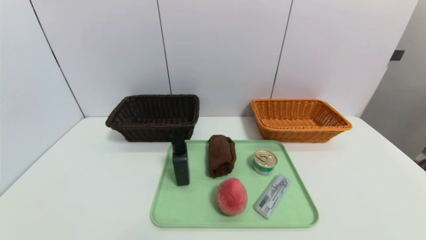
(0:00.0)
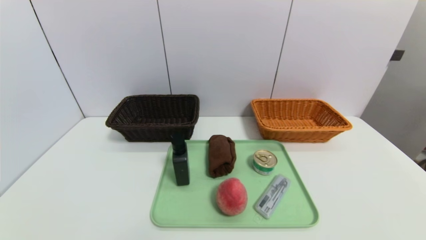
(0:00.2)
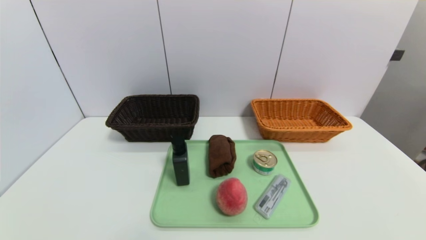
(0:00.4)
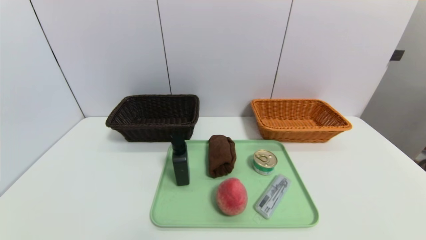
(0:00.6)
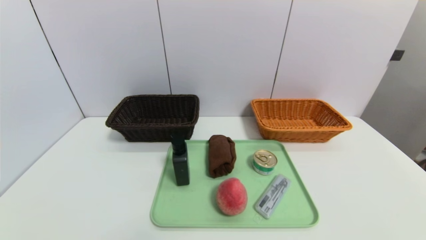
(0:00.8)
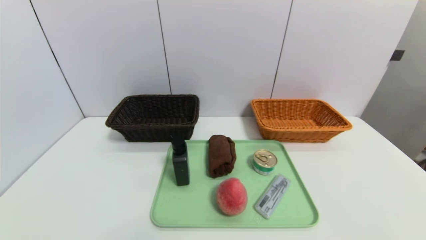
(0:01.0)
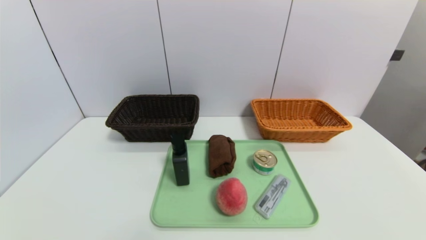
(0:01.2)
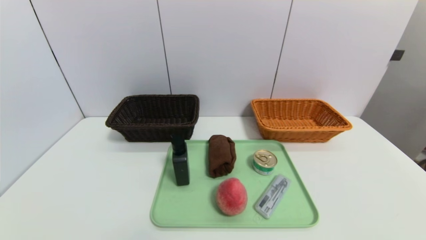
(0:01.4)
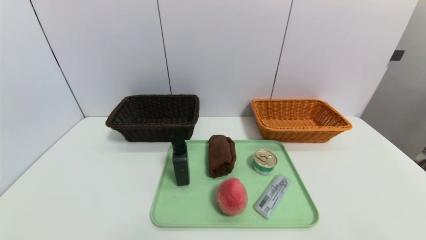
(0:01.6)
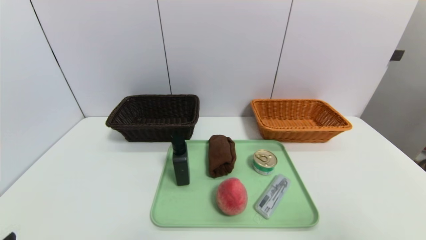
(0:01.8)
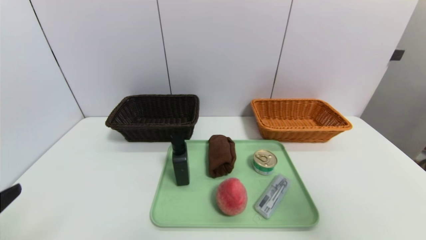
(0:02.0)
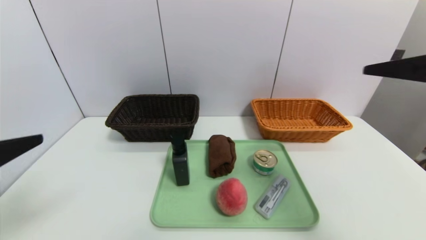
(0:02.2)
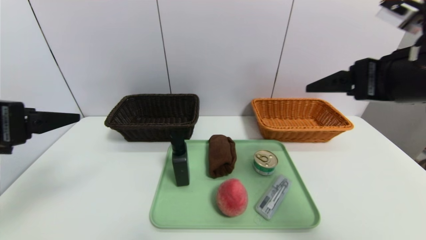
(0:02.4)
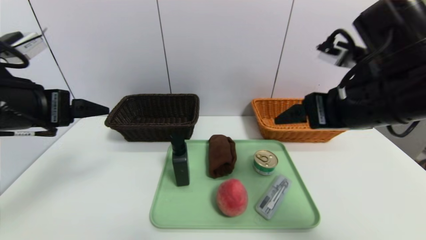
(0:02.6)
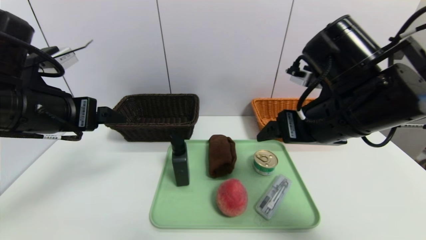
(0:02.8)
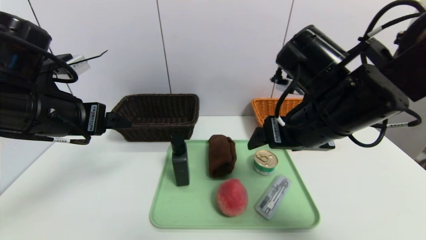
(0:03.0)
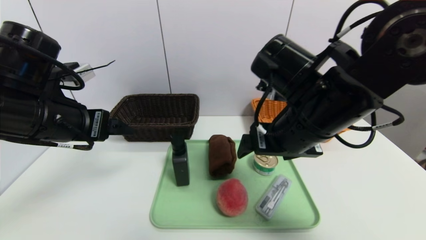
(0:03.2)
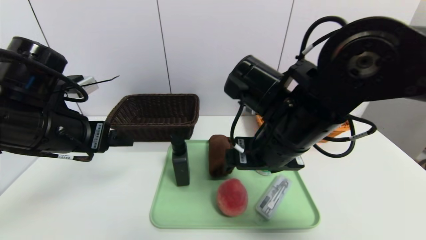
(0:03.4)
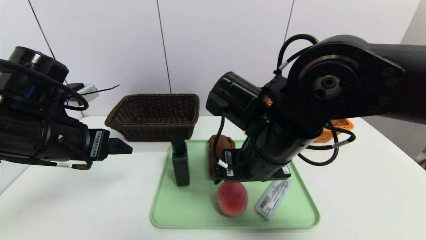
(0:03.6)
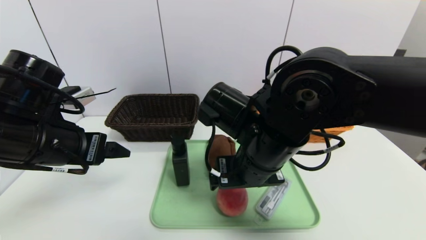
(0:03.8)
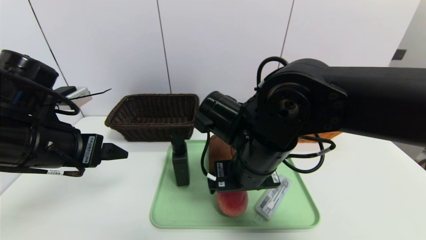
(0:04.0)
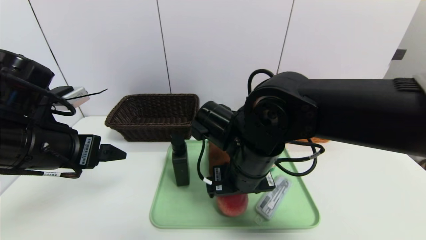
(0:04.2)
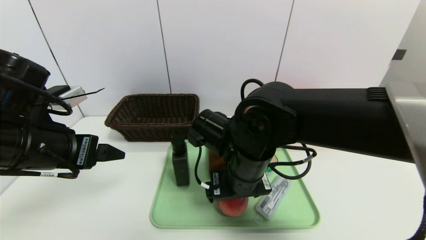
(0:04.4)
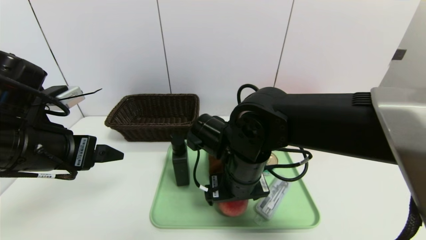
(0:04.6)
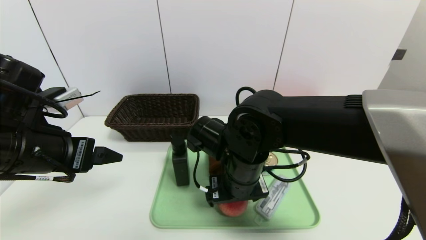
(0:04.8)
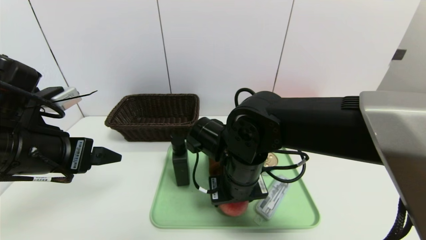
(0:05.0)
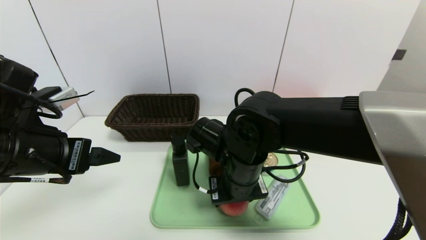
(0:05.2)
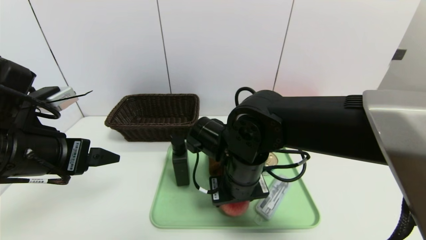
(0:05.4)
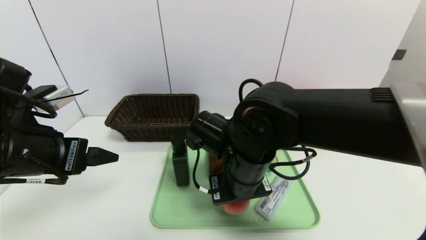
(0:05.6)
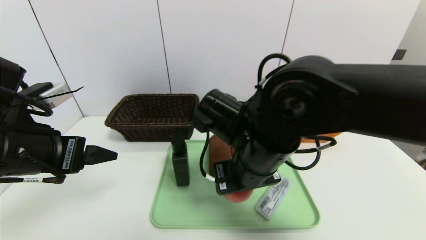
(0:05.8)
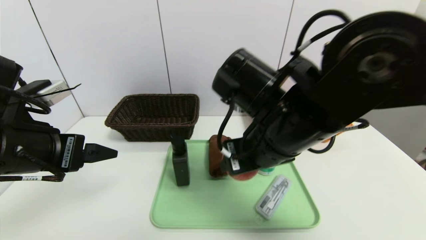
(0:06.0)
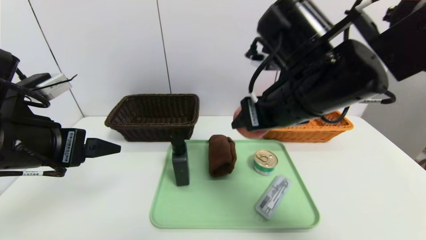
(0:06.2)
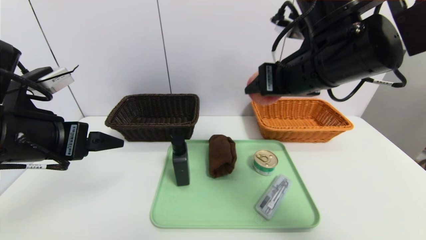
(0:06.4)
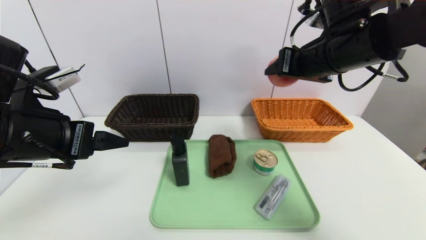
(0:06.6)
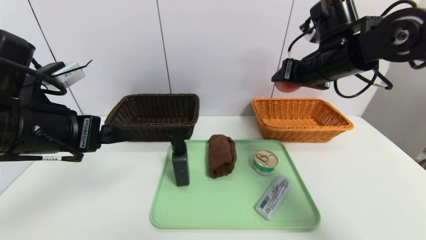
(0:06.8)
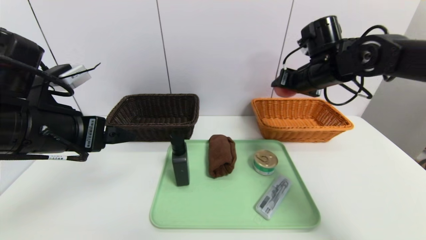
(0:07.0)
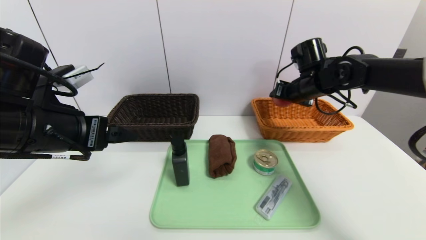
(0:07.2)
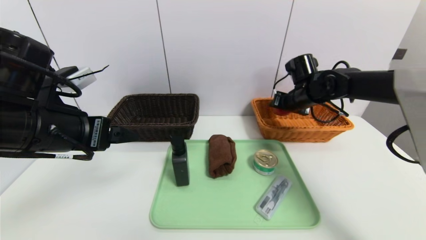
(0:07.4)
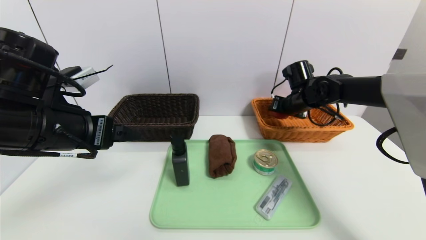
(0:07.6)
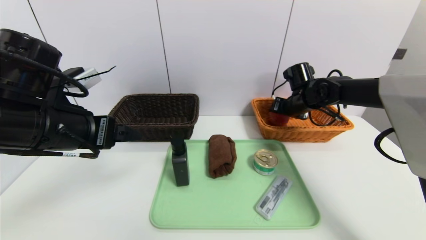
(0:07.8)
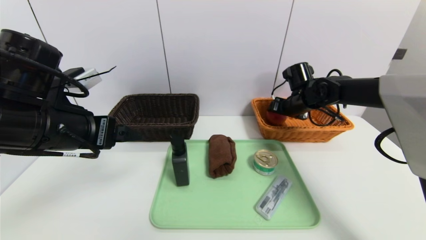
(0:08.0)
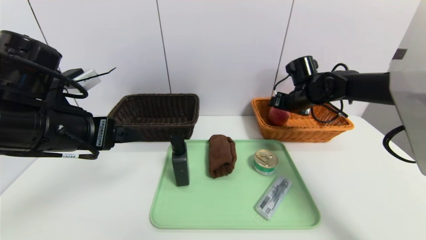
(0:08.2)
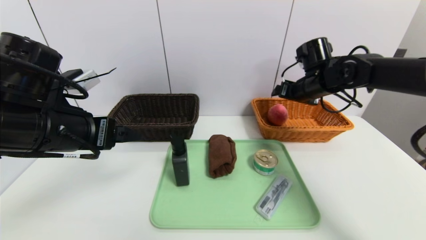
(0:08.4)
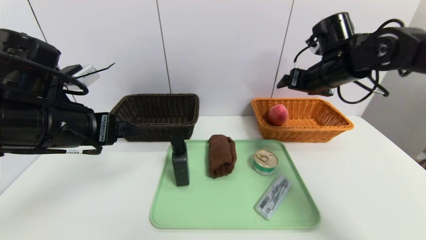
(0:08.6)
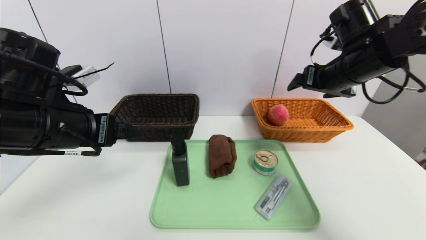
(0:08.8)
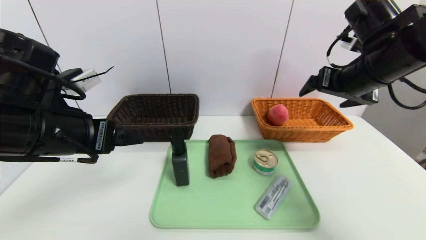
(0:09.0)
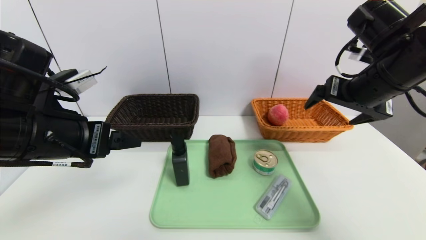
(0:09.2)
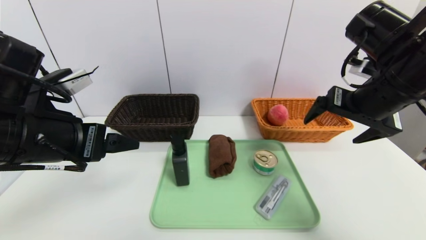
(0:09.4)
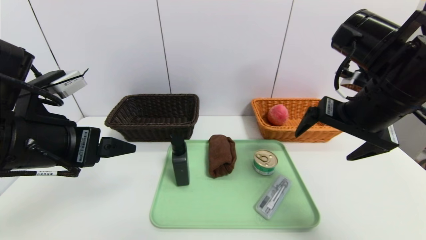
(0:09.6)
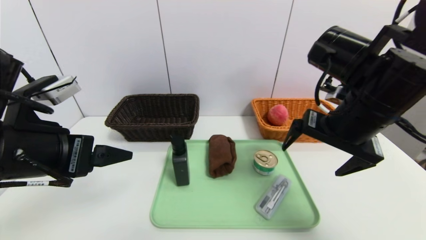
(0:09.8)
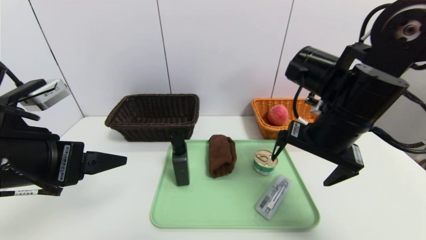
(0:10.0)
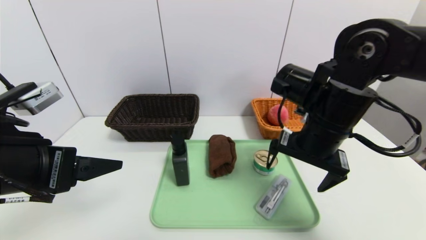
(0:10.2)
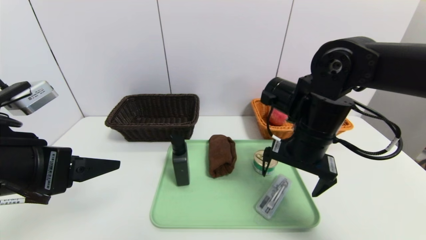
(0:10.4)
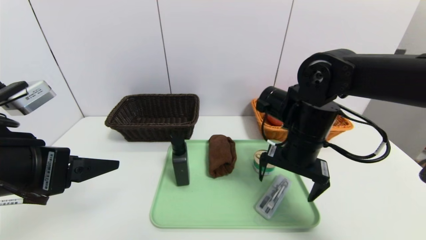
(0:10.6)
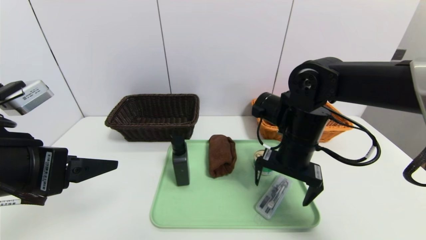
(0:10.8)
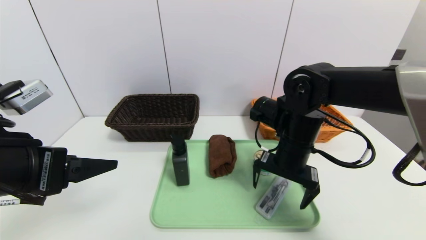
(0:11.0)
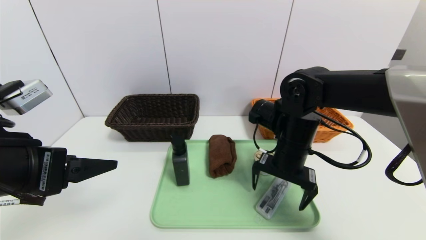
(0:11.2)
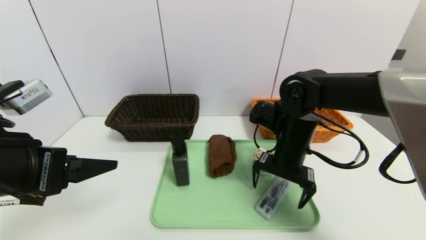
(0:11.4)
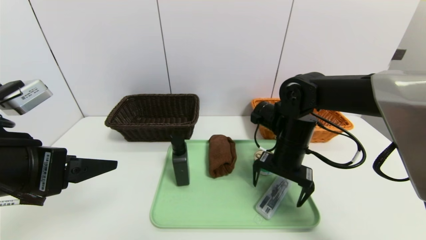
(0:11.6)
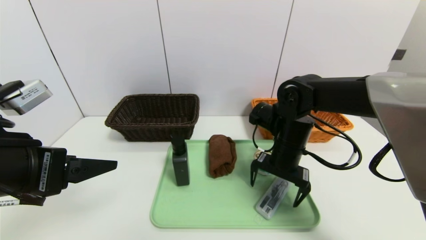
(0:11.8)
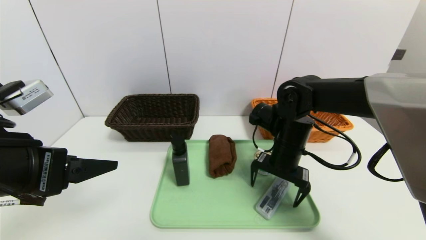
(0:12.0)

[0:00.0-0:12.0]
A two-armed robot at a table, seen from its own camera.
Task of the whole recording: place the food in the right basket with the right gripper, and place the non food items in the left basket with the left gripper.
Step, 0:00.0 to 0:08.2: Grasp the peach and put it in the right basket.
0:01.6 to 0:03.0: The right gripper heads forward and to the left, covering approximately 30 cm; the left gripper is displaced forward and upward by roughly 30 cm.
0:03.0 to 0:04.4: The right gripper goes approximately 15 cm to the left and downward.
0:04.4 to 0:06.0: The right gripper shifts approximately 10 cm upward, and closes.
0:06.0 to 0:07.6: The right gripper shifts approximately 30 cm forward and to the right.
0:07.6 to 0:09.0: The right gripper travels backward and upward by approximately 20 cm, and opens its fingers.
0:09.0 to 0:10.4: The right gripper shifts approximately 15 cm to the left and downward, while the left gripper goes approximately 5 cm backward.
0:10.4 to 0:12.0: The right gripper travels downward by roughly 5 cm.

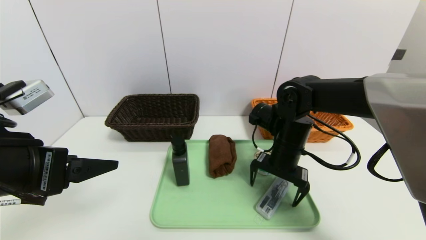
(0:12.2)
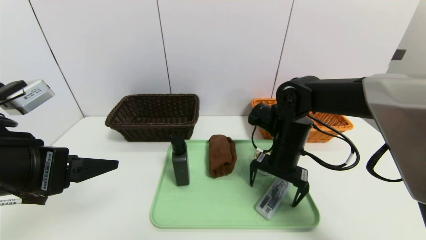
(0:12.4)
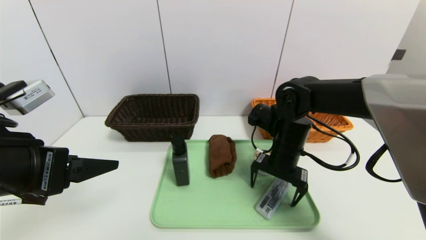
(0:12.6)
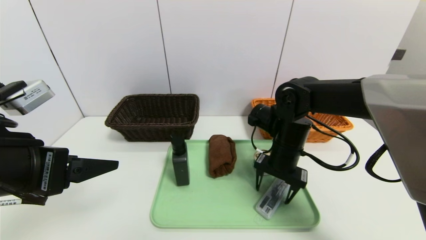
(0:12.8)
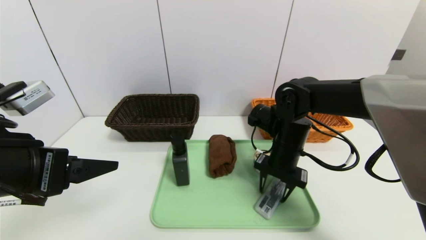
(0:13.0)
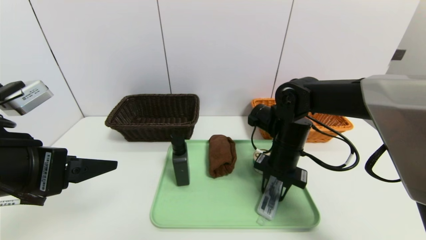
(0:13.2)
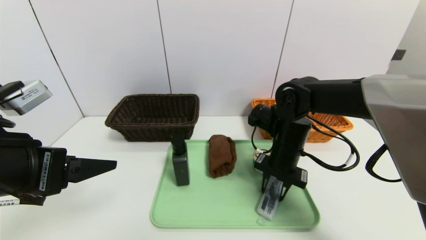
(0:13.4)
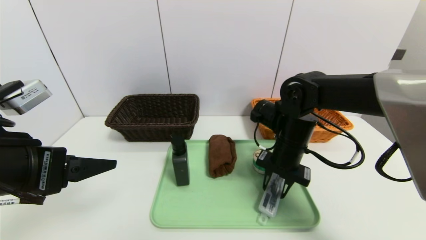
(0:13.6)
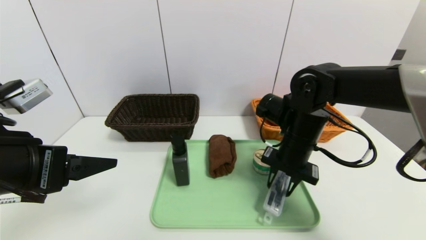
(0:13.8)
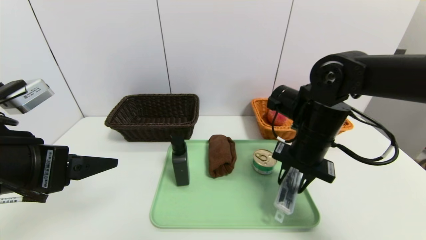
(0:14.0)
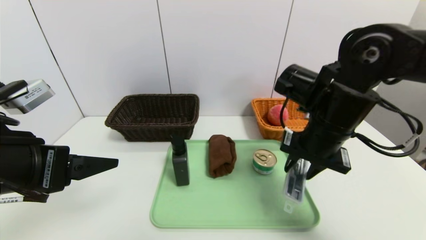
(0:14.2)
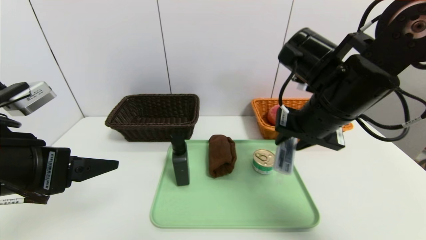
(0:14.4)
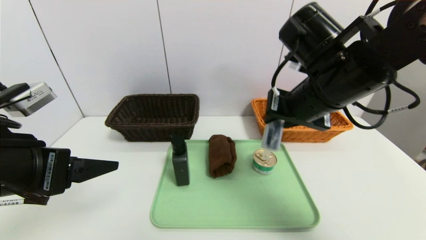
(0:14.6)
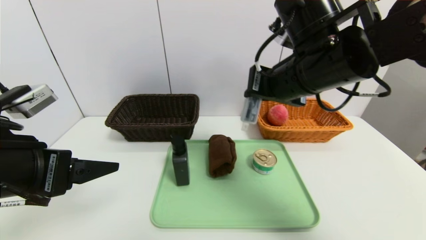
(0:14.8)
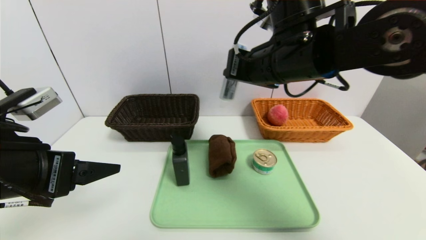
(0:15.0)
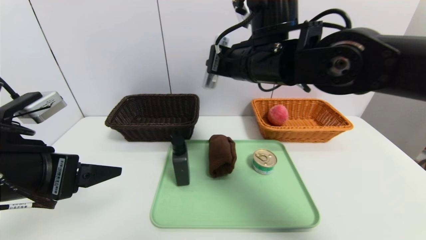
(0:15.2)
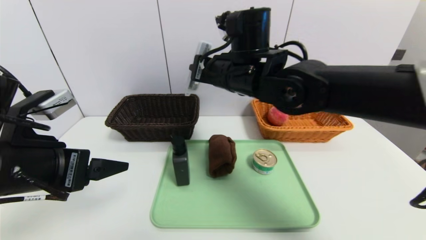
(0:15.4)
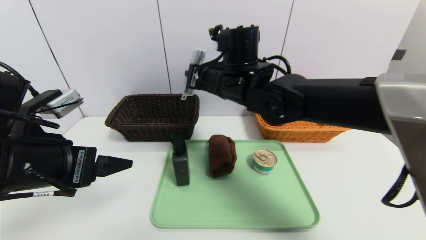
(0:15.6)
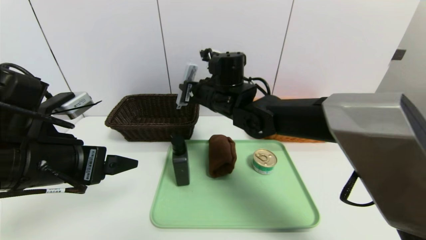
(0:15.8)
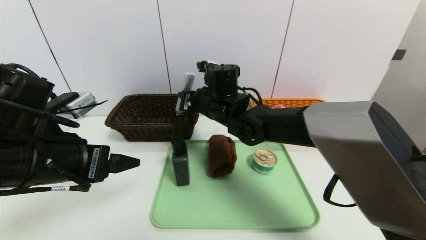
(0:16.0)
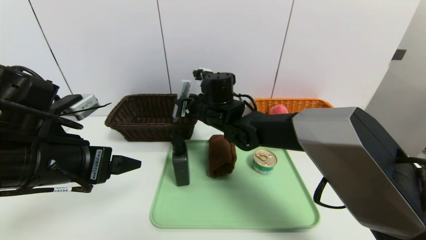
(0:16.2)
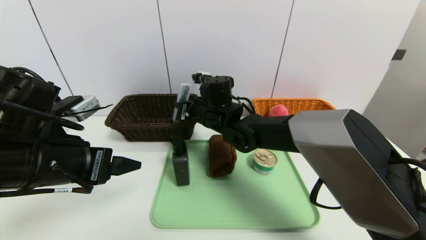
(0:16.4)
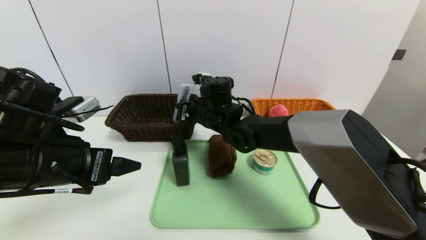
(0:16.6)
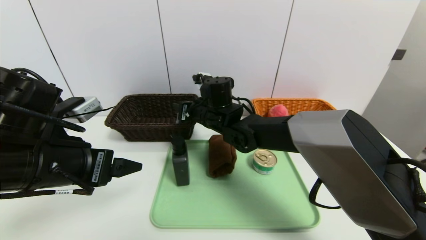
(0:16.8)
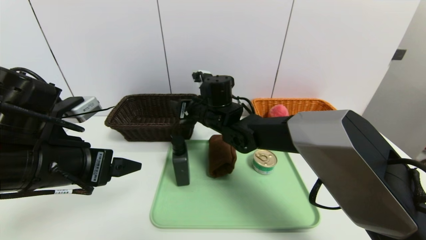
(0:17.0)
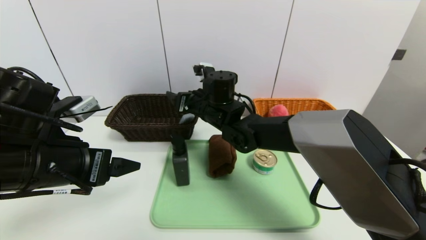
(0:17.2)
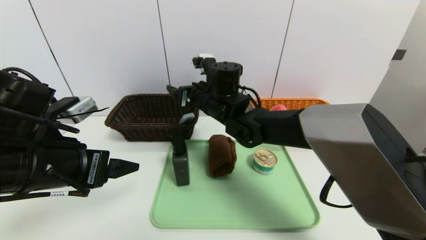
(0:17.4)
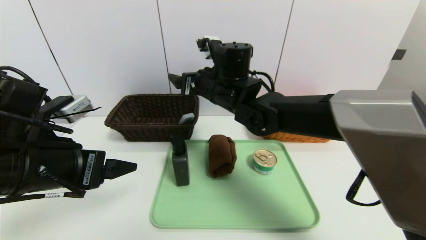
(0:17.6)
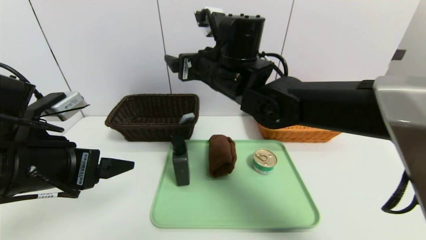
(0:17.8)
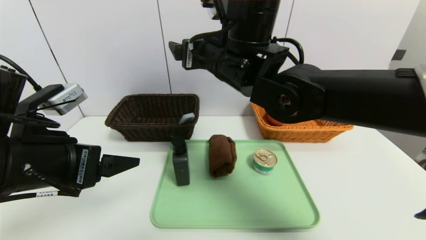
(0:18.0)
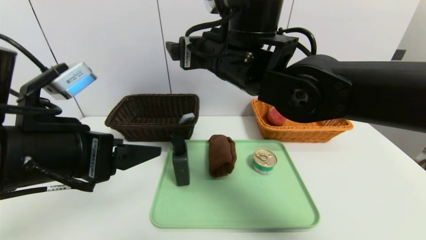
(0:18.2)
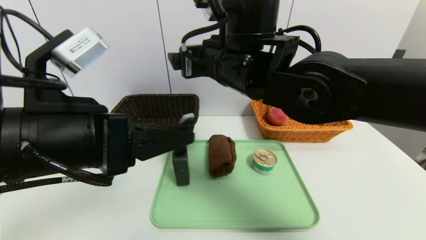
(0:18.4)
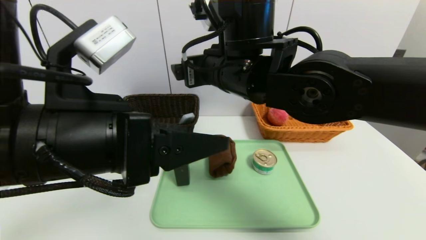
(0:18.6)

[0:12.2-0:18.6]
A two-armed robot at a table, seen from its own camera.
Task of the whole recording: place the food in the right basket with the right gripper, and place the non food items in the left basket with the left gripper.
0:12.2 to 0:13.8: The right gripper closes.
0:13.8 to 0:15.4: The right gripper is displaced to the left and upward by roughly 15 cm.
0:15.4 to 0:17.0: The right gripper shifts some 10 cm downward and forward, and opens up.
0:17.0 to 0:18.6: The left gripper heads to the right and upward, covering some 10 cm; the right gripper is displaced upward and backward by roughly 15 cm, and opens.
